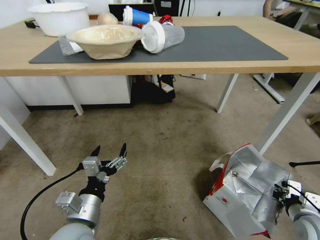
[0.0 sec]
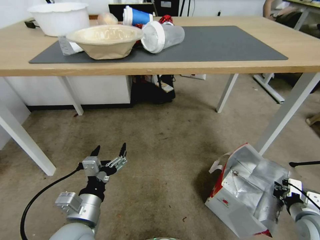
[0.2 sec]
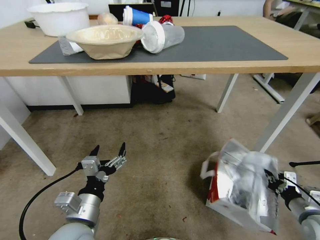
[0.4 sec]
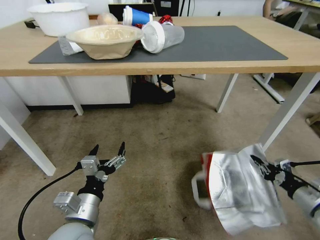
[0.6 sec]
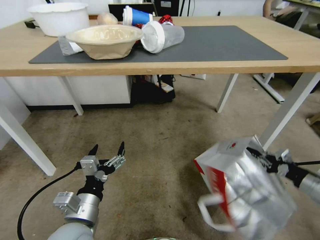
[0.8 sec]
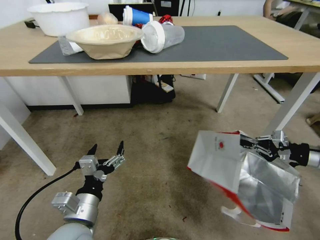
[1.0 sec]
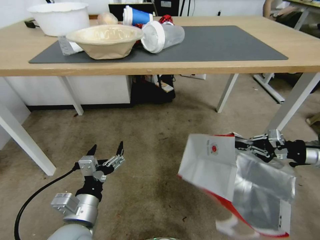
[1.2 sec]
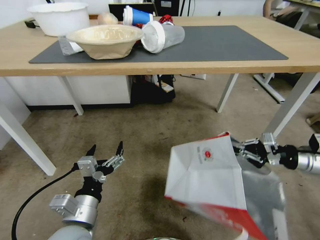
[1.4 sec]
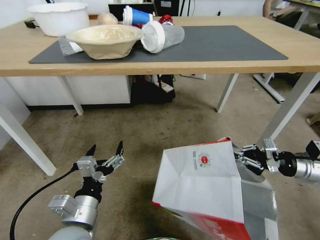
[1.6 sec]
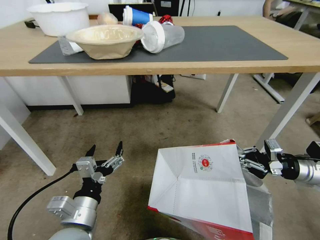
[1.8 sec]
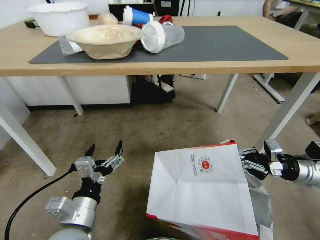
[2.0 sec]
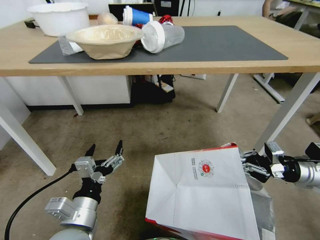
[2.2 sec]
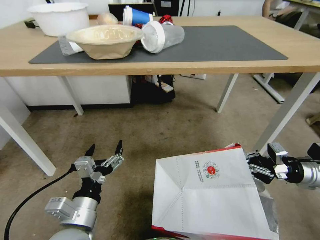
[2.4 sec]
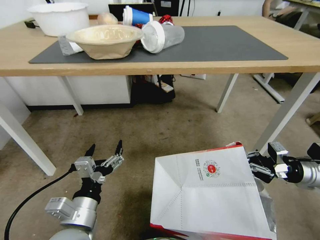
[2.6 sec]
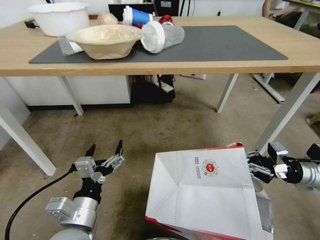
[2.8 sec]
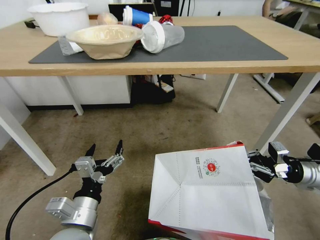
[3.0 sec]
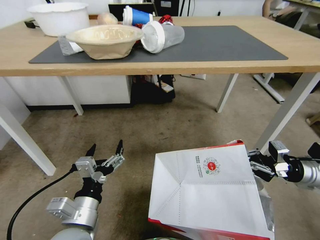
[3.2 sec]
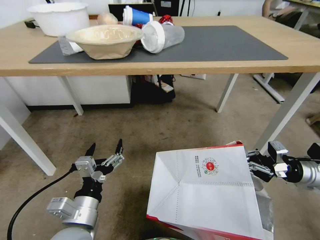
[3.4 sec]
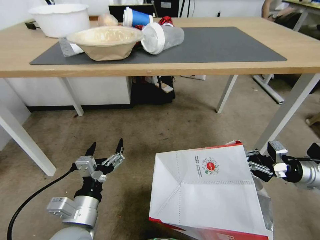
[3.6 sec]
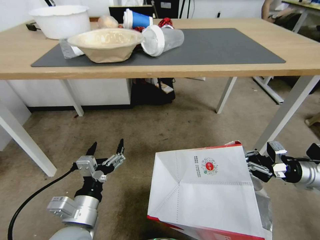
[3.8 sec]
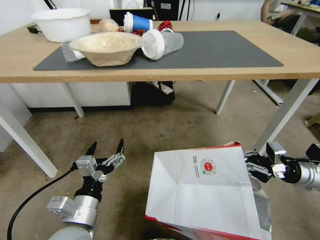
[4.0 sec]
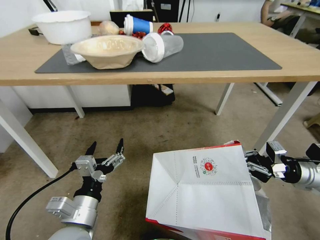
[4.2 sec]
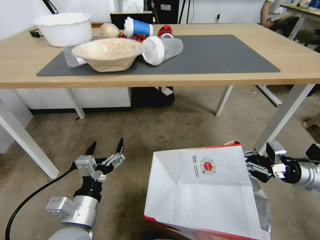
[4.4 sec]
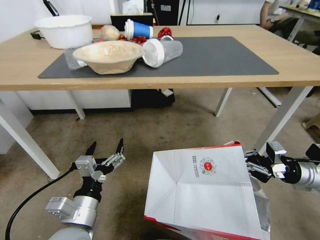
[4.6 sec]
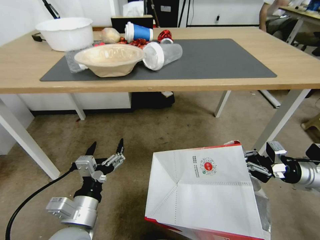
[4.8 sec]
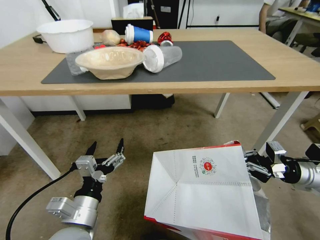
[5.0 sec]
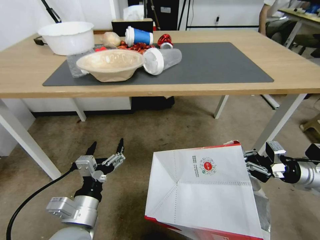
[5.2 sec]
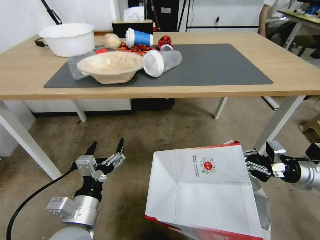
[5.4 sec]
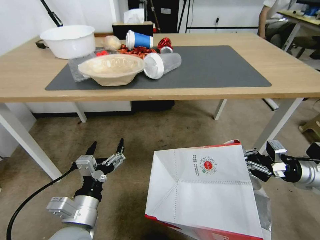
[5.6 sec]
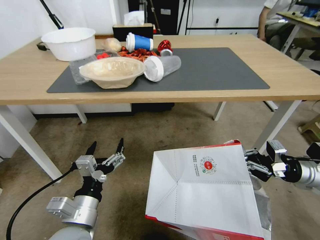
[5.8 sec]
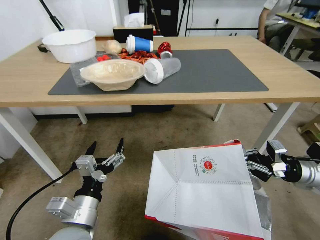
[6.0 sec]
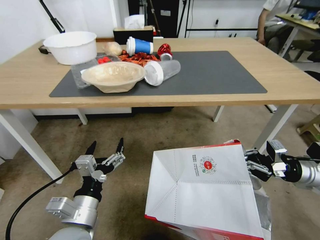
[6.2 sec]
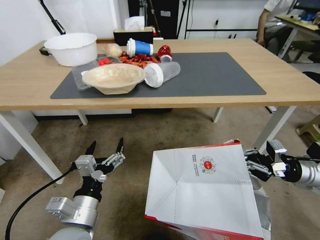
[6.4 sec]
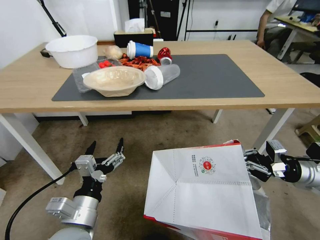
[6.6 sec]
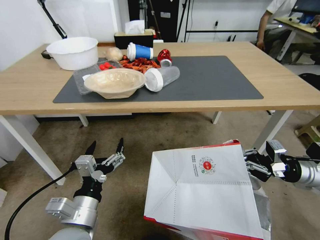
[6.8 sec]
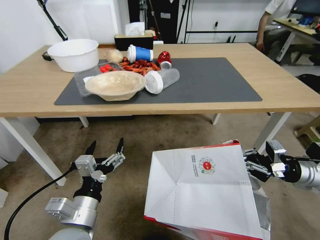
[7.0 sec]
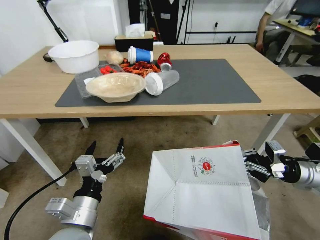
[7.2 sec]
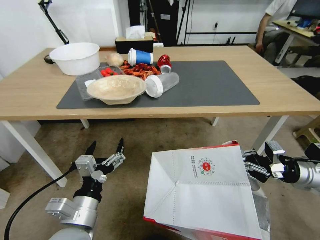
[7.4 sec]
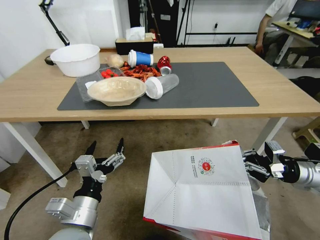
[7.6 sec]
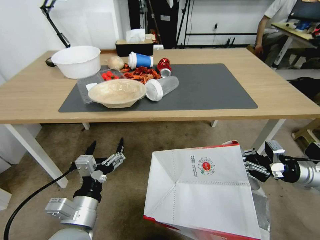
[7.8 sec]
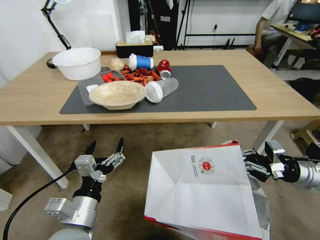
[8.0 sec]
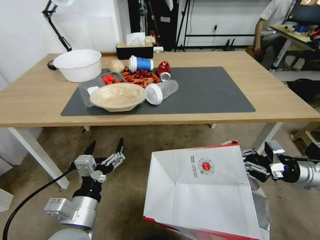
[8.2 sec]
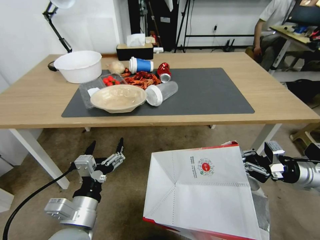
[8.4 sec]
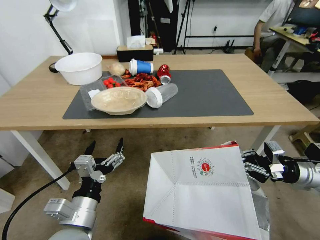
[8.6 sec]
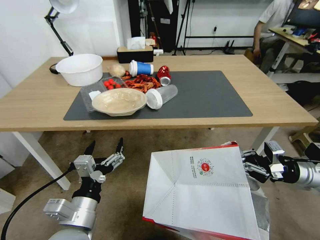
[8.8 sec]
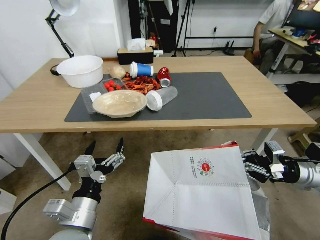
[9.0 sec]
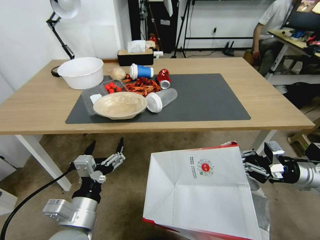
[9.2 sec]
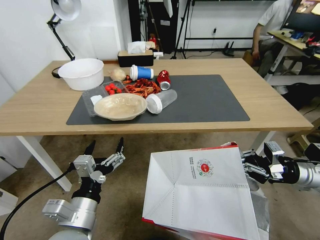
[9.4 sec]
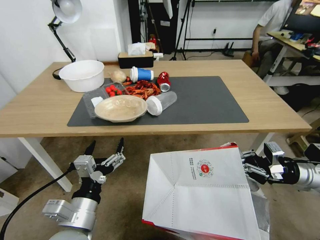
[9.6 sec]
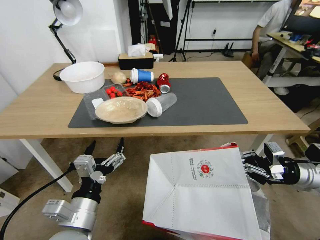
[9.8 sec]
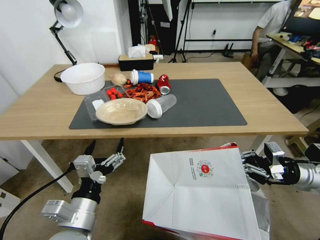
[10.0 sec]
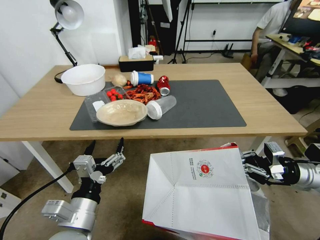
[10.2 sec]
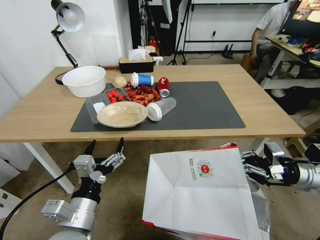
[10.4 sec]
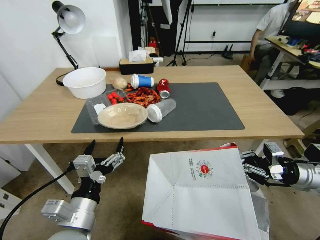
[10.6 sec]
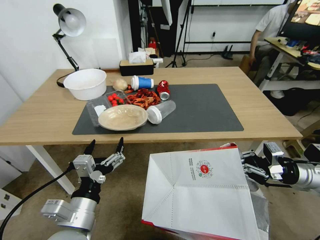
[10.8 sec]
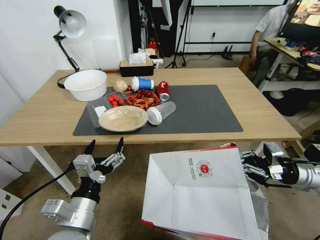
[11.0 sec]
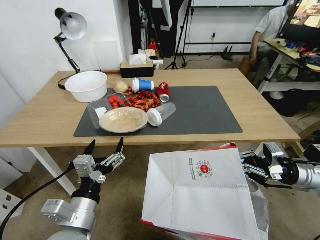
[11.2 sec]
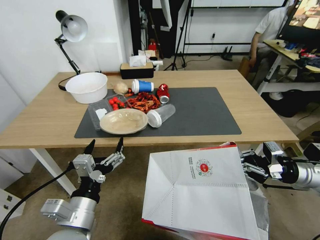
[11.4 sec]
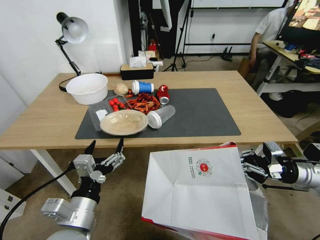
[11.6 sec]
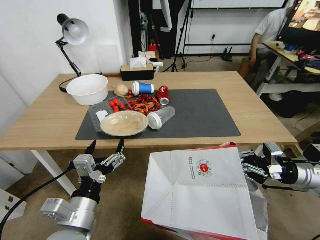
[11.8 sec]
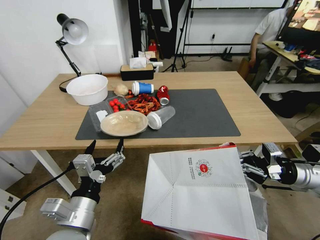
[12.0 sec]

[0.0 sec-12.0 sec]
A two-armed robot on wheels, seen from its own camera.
Task of the whole recording: Pick up the food delivery bag from the floor and place it on the table.
0.0 sec to 1.6 sec: The right gripper is displaced upward and forward by approximately 20 cm.
1.6 sec to 3.0 sec: The grippers move only a little.

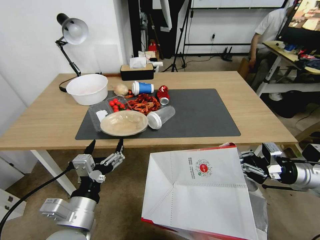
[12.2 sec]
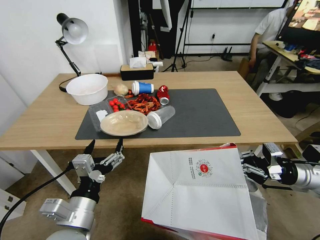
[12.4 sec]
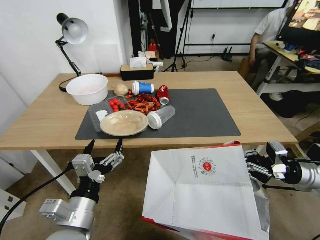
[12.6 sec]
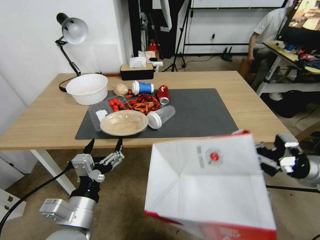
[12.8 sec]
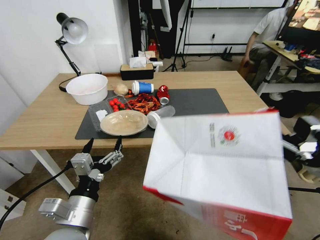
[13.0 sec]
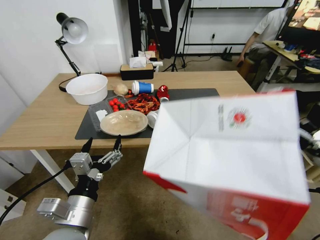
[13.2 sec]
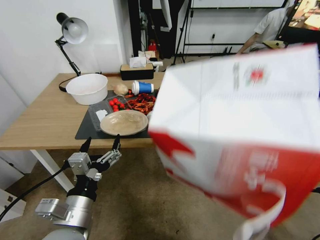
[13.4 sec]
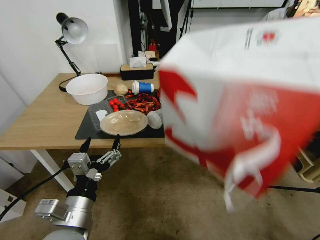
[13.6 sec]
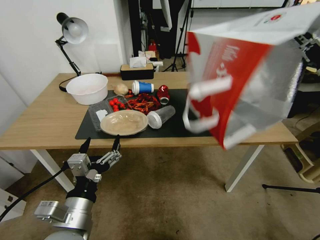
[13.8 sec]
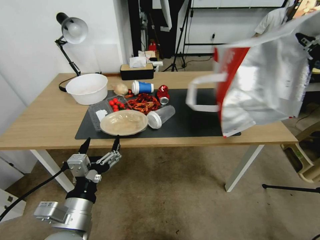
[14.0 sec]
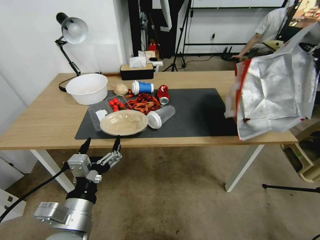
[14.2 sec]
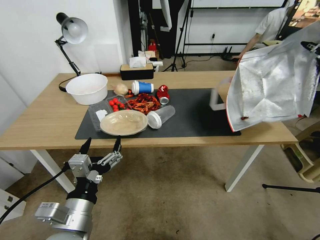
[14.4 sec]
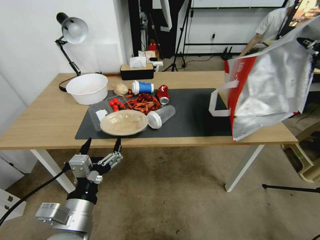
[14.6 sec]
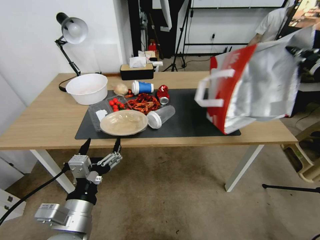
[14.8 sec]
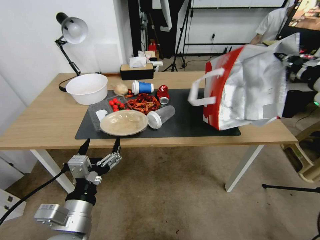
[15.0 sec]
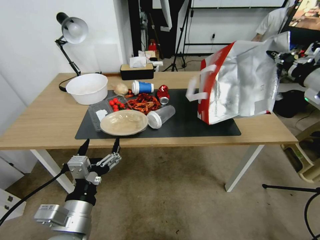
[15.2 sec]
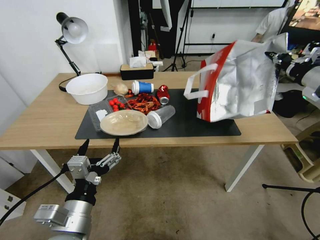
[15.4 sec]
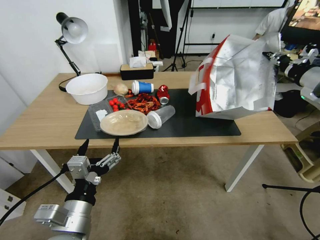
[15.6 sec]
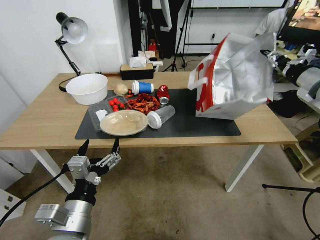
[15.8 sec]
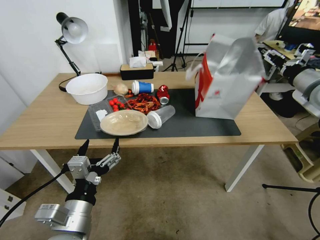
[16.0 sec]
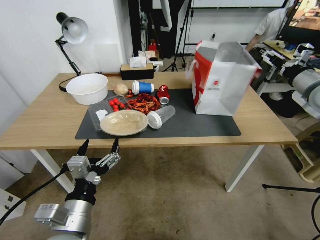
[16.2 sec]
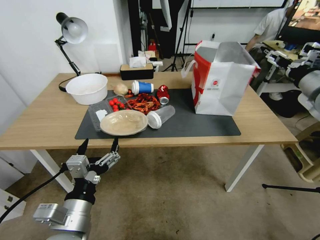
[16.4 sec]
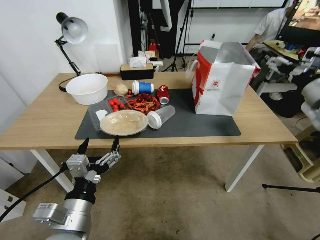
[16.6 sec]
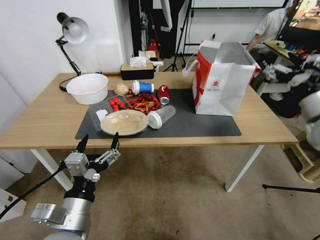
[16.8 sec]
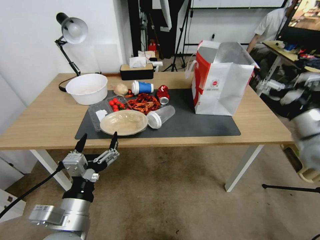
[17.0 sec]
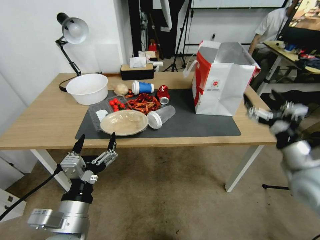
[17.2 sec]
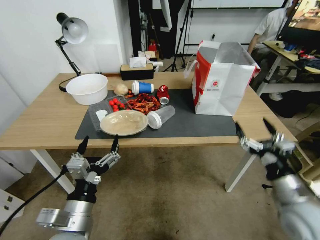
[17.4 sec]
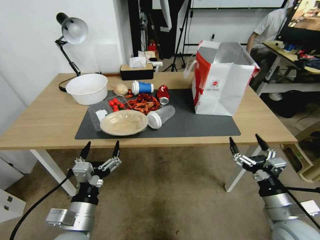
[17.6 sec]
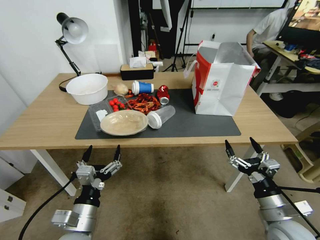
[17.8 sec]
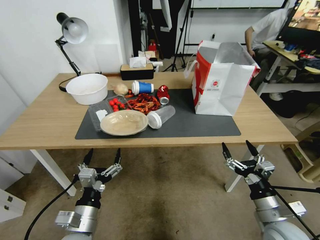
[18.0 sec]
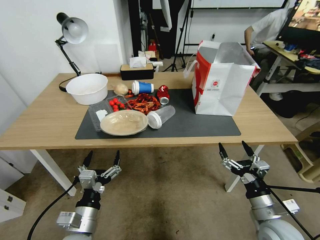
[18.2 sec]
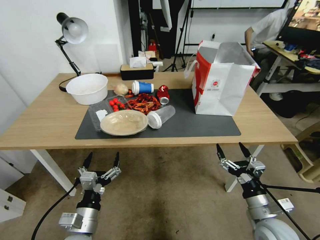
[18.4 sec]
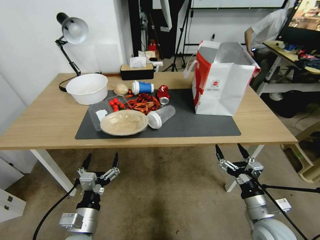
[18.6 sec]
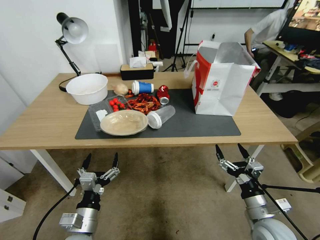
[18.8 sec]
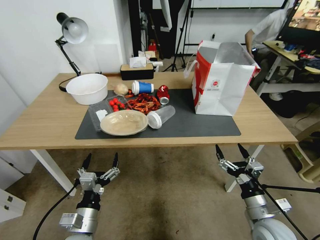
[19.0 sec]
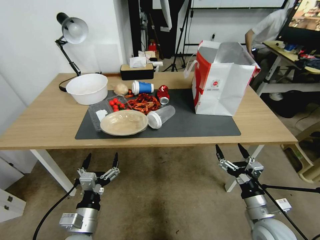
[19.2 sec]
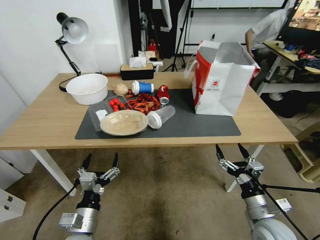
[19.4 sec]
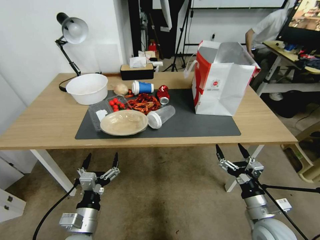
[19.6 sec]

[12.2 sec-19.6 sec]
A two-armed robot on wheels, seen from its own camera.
Task of the whole recording: Pick up the food delivery bag from the floor and place it on the table.
12.2 sec to 13.6 sec: The right gripper heads upward, covering about 15 cm.
13.6 sec to 15.2 sec: The right gripper travels forward by about 10 cm.
15.2 sec to 16.6 sec: The right gripper opens its fingers.
16.6 sec to 18.2 sec: The right gripper shifts roughly 35 cm downward, backward and to the left. Meanwhile the left gripper shifts some 10 cm downward.
18.2 sec to 19.6 sec: The grippers stay close to where they were, moving slightly.
